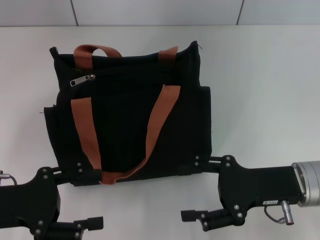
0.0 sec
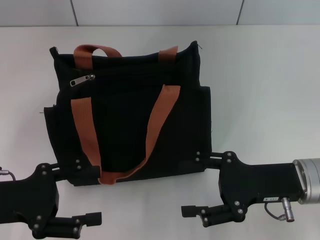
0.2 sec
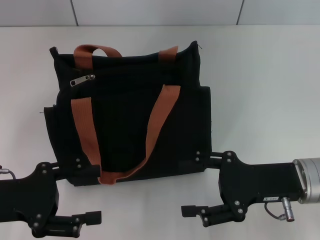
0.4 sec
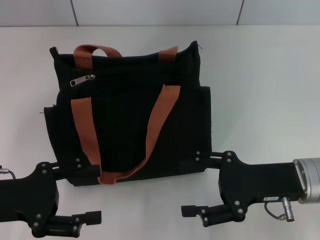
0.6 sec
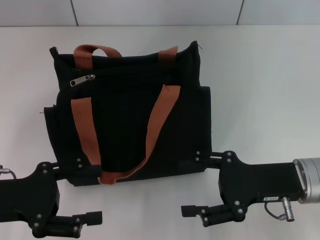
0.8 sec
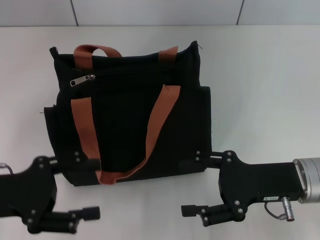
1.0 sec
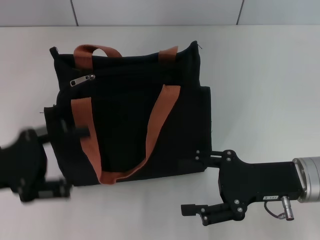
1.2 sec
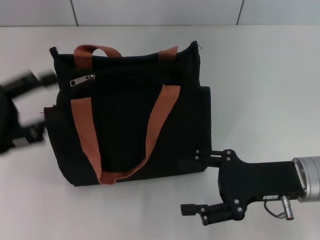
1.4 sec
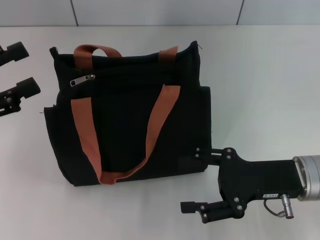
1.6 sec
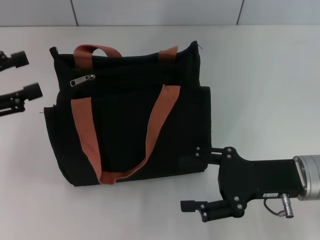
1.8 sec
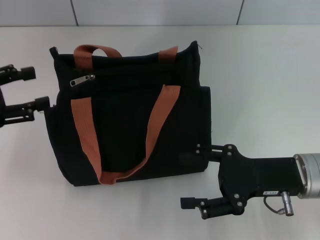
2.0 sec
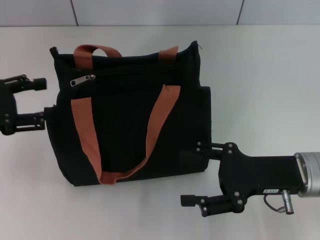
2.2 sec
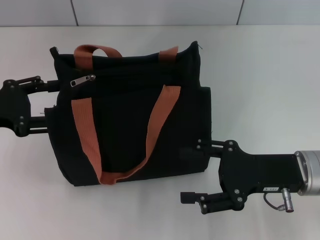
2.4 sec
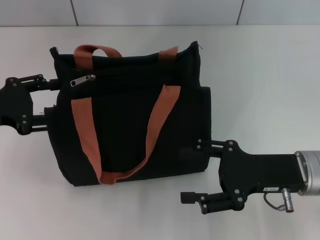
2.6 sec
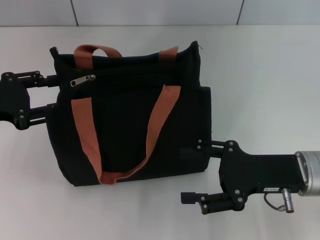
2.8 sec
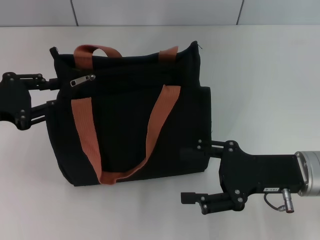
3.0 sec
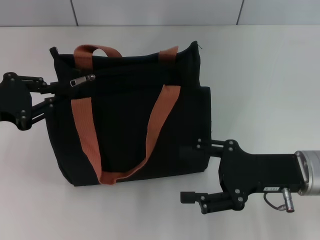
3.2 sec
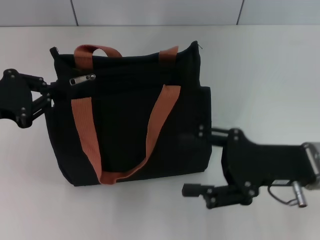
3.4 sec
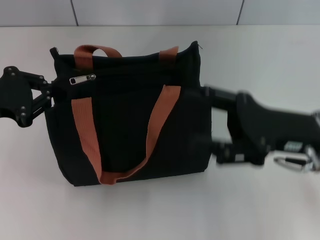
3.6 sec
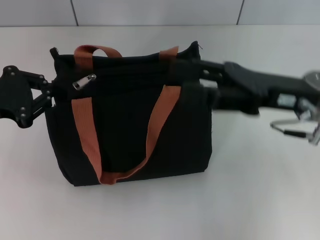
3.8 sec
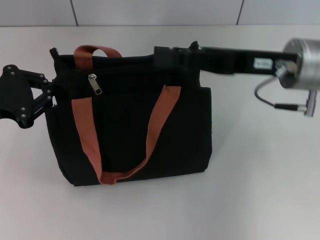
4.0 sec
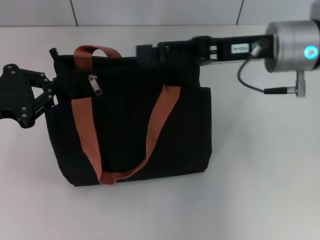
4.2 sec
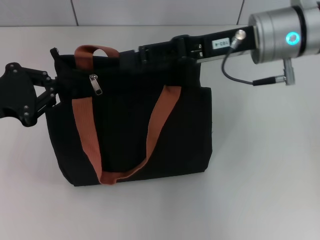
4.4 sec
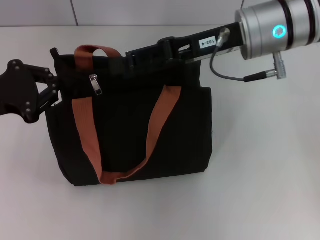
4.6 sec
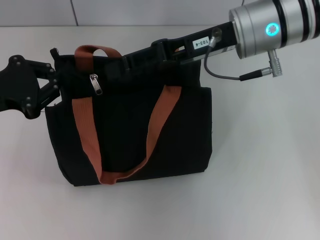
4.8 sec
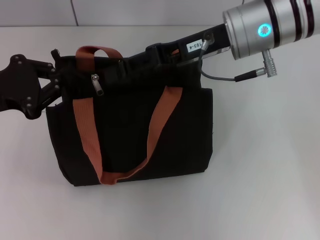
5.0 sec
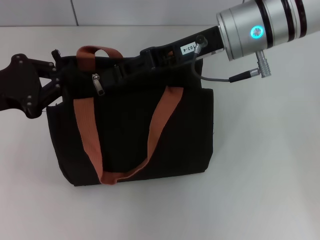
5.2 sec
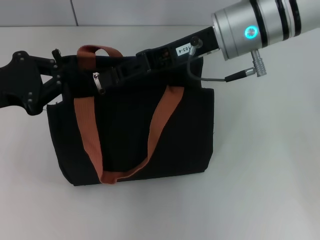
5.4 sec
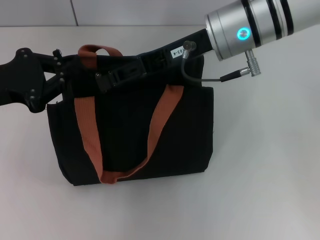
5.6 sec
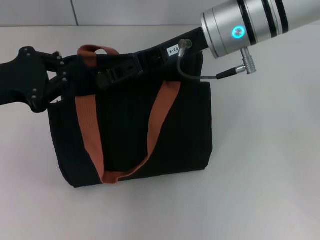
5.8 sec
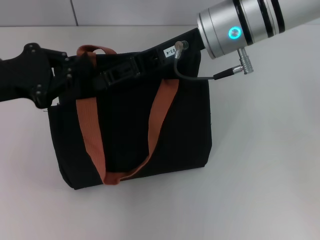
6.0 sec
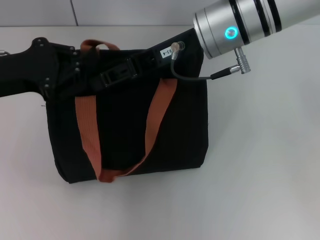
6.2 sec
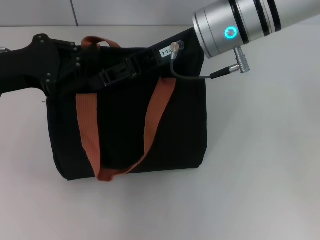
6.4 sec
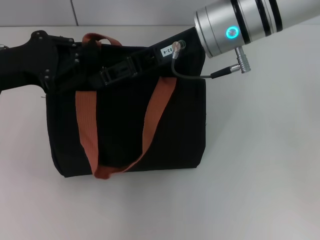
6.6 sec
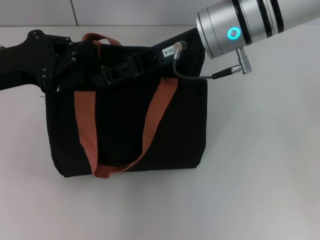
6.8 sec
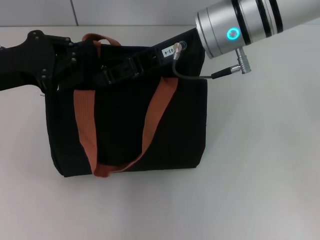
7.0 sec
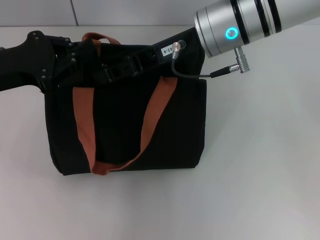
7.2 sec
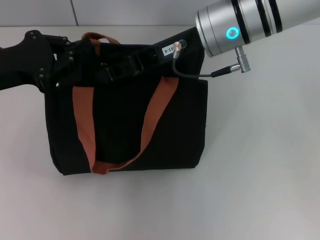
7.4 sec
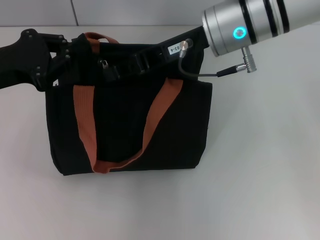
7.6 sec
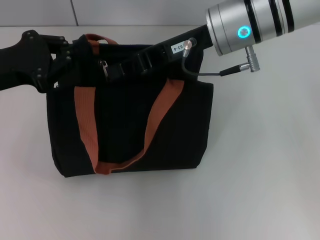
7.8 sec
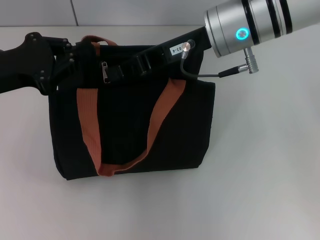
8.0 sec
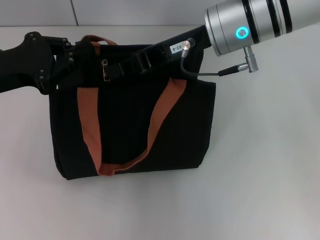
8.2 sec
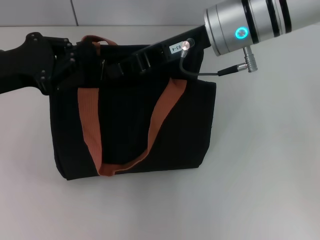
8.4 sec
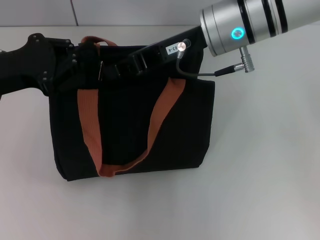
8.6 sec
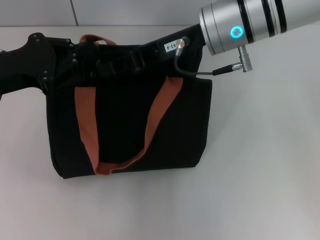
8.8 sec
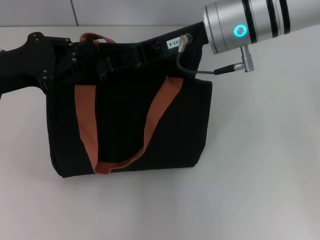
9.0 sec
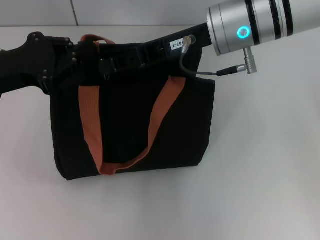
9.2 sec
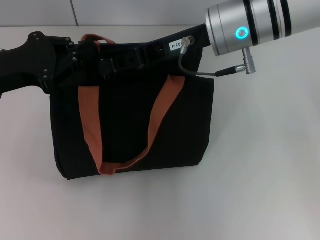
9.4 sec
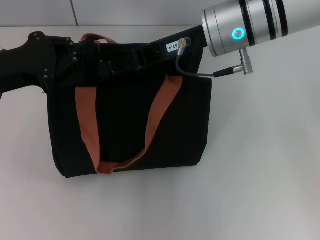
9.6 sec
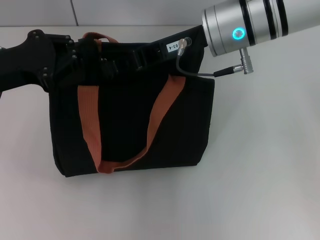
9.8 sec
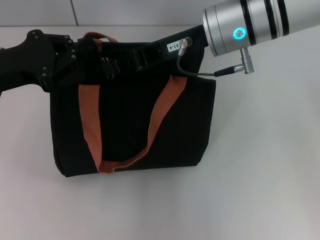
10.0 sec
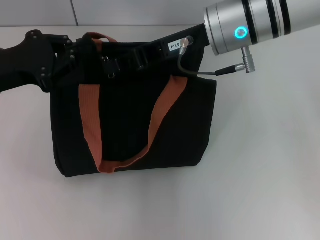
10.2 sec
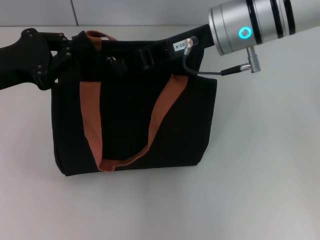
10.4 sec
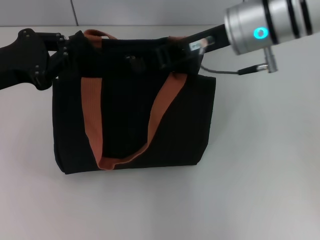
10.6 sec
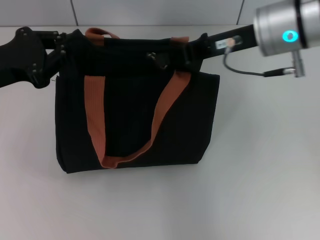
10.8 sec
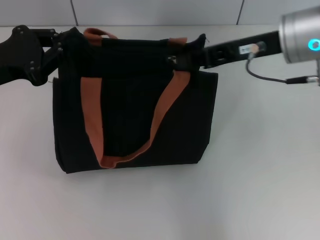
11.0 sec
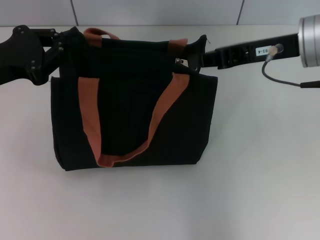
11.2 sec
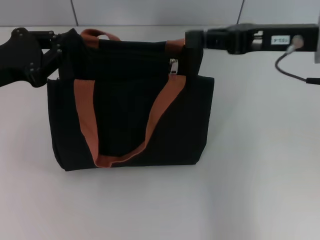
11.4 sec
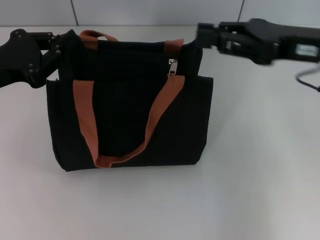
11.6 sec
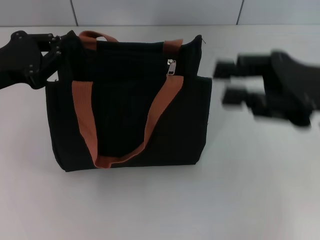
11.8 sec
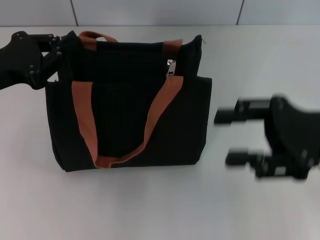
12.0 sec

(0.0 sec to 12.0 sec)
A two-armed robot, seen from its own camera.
Step, 0.0 sec - 11.2 sec: Pull up the zipper with your right hand.
0.0 sec - 1.6 sec: The left gripper travels upward, to the left and forward by about 10 cm.
1.6 sec - 3.0 sec: The left gripper ends up about 5 cm from where it was.
3.0 sec - 4.4 sec: The left gripper closes up, while the right gripper shifts roughly 20 cm upward, forward and to the left.
4.4 sec - 6.0 sec: The right gripper travels to the left by about 5 cm, and closes its fingers.
6.0 sec - 7.6 sec: The grippers move only a little.
7.6 sec - 10.4 sec: Neither gripper changes place.
10.4 sec - 12.0 sec: The right gripper travels to the right, backward and downward by approximately 20 cm, and opens its fingers.

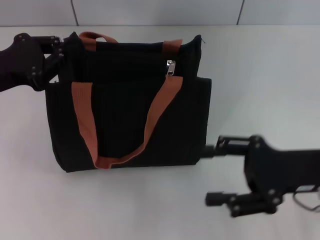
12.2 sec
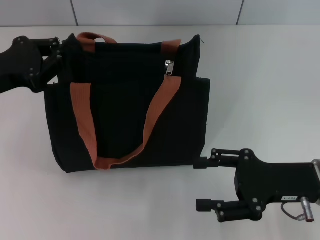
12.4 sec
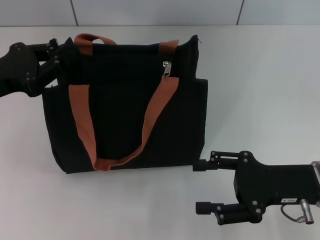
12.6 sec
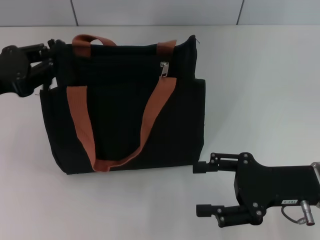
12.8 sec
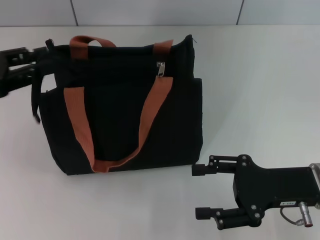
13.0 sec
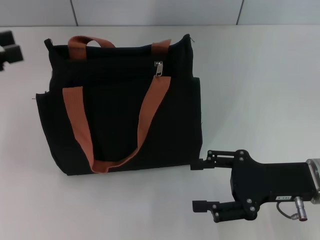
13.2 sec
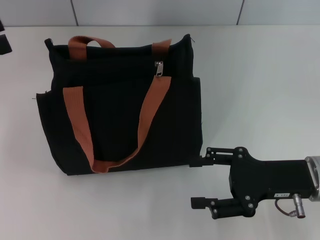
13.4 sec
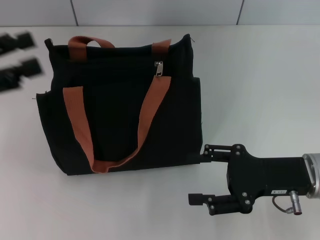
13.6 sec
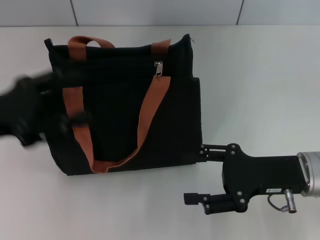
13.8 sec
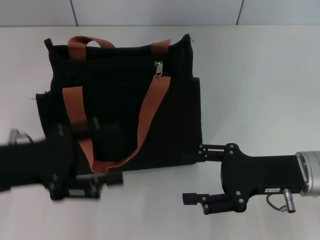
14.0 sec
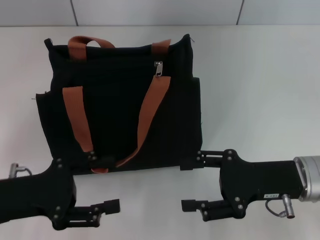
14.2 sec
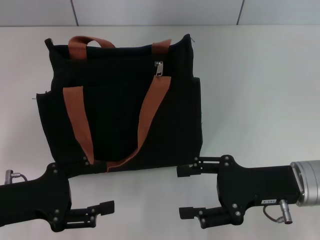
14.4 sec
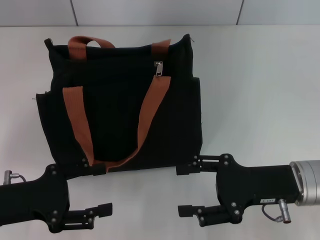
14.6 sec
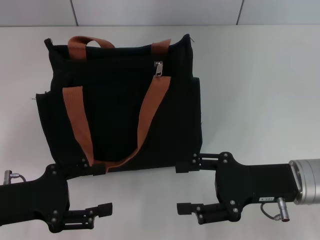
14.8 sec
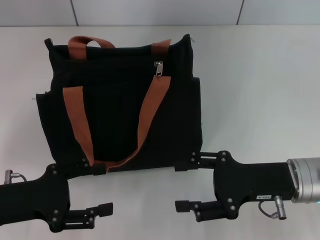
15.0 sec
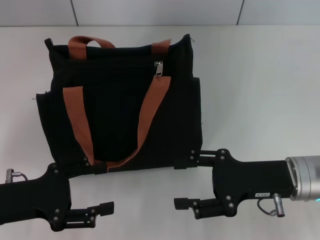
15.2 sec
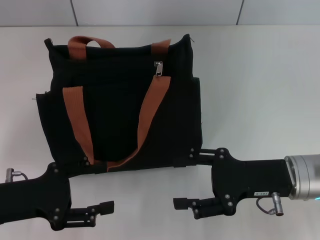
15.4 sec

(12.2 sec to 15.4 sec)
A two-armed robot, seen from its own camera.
12.2 sec - 13.8 sec: The left gripper travels to the left and back again, roughly 10 cm each way, and opens.
13.8 sec - 15.4 sec: The left gripper moves downward and backward, about 10 cm.

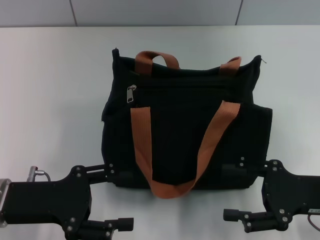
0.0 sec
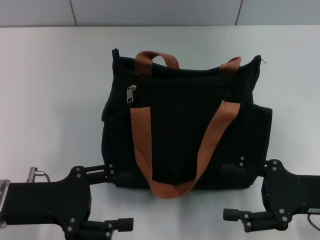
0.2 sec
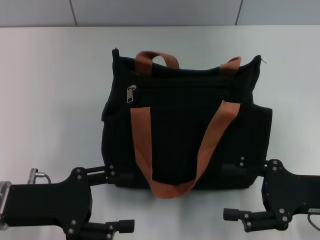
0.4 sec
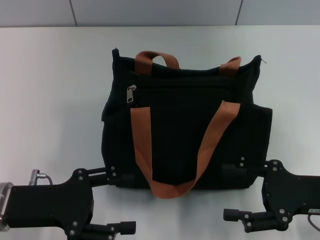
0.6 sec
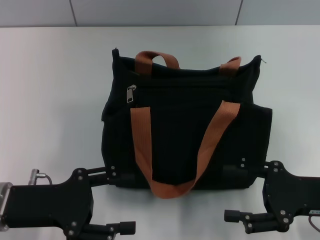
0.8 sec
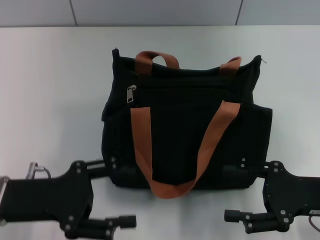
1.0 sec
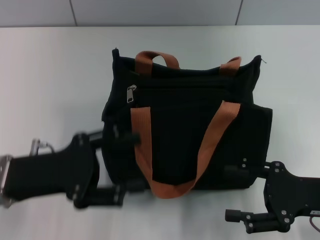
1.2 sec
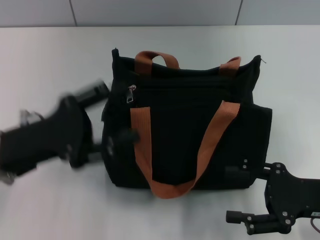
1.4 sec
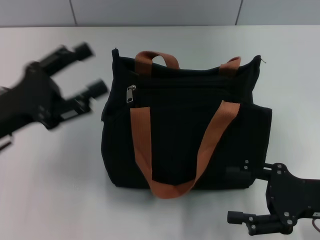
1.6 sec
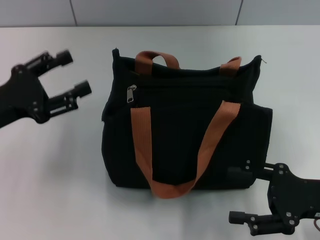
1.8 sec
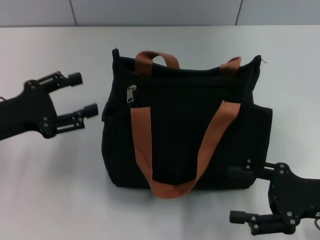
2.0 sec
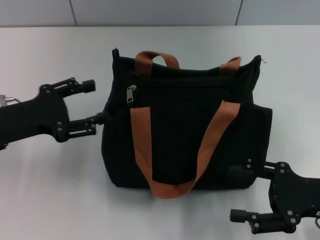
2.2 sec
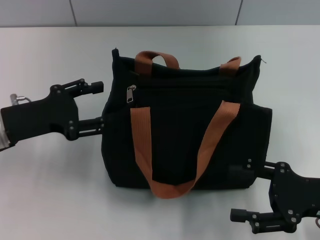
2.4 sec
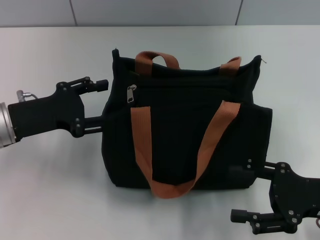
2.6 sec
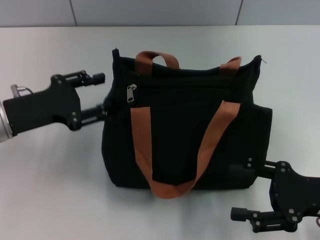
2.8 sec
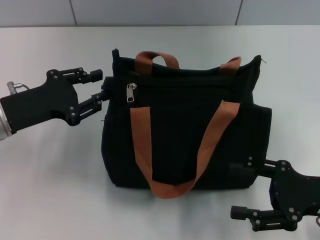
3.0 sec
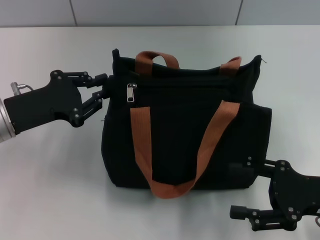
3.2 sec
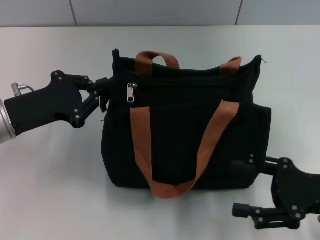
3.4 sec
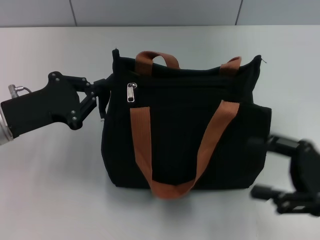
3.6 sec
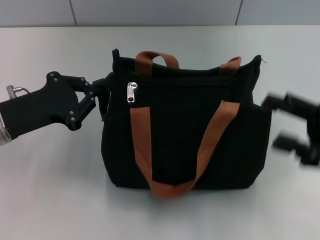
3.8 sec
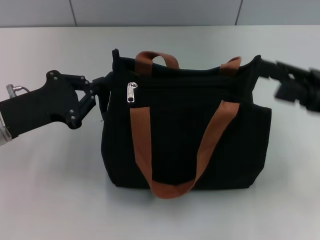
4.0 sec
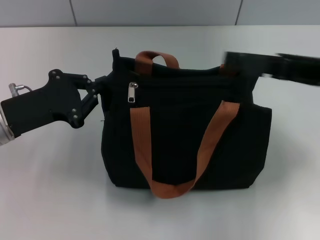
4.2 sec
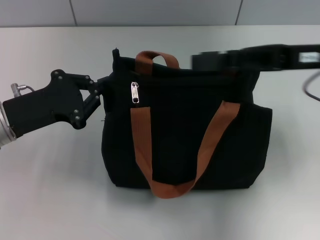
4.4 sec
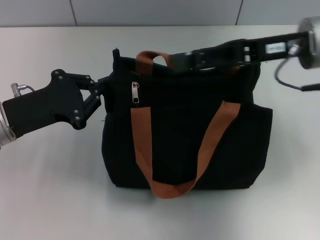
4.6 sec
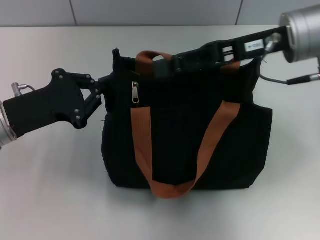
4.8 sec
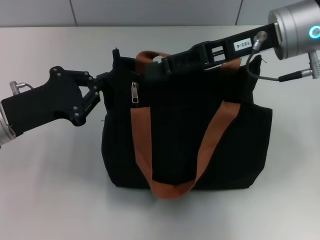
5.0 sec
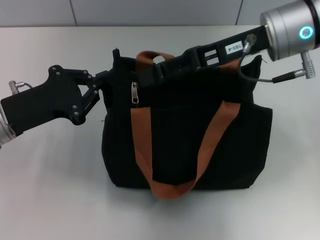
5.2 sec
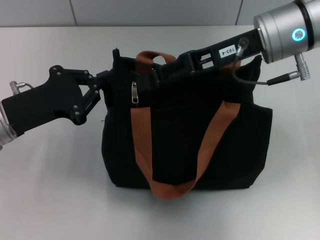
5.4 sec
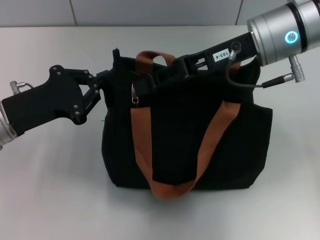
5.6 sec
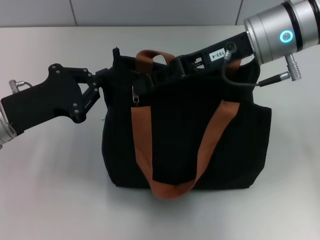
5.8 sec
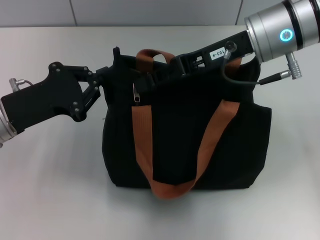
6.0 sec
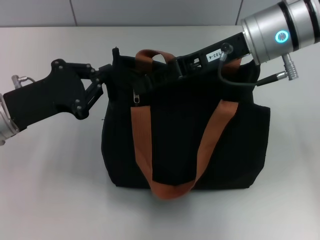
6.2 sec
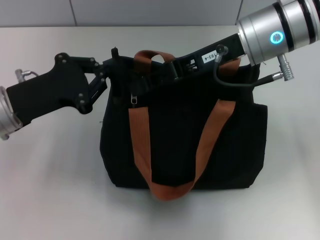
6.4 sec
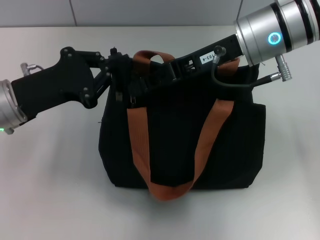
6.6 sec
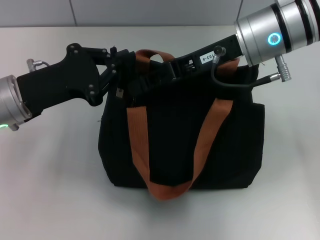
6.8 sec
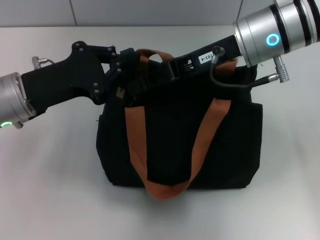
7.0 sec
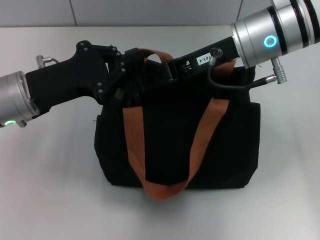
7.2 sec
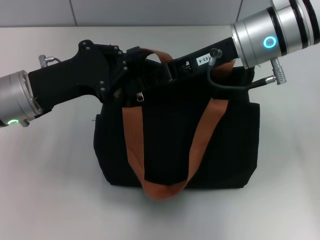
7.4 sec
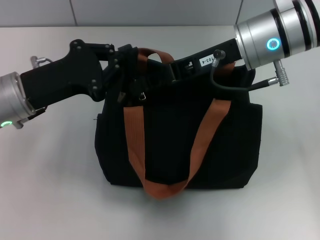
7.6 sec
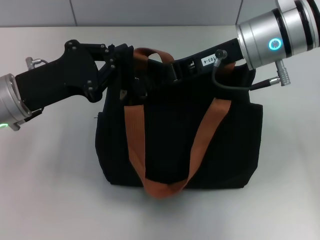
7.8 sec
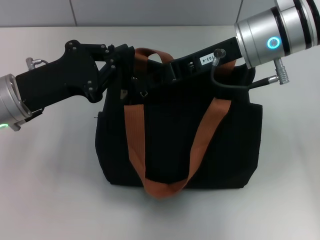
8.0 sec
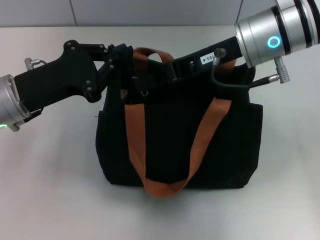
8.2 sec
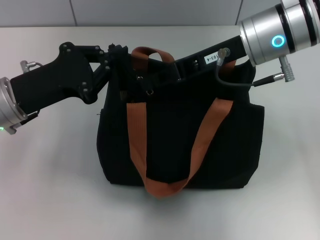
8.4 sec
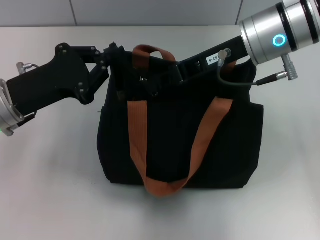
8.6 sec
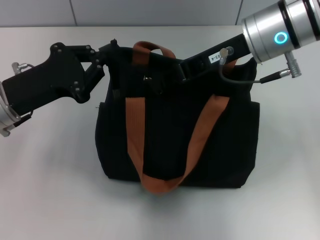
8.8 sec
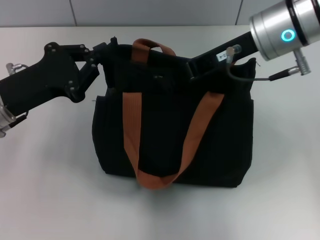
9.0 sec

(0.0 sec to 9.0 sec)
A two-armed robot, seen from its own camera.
1.6 sec - 3.0 sec: The left gripper is displaced forward by approximately 5 cm.
3.0 sec - 4.4 sec: The left gripper closes; the right gripper goes about 20 cm forward, upward and to the left.
4.4 sec - 6.0 sec: The right gripper moves to the left, roughly 10 cm, and closes up.
6.0 sec - 7.6 sec: The grippers stay close to where they were, moving slightly.
